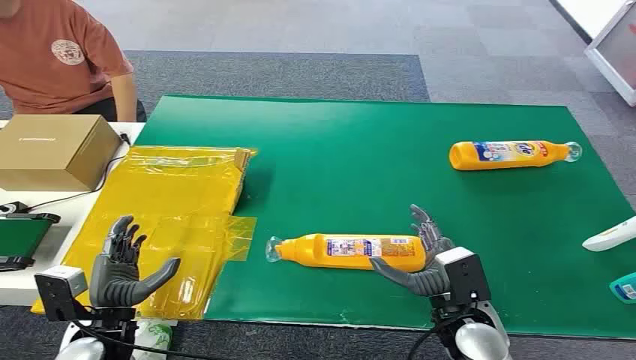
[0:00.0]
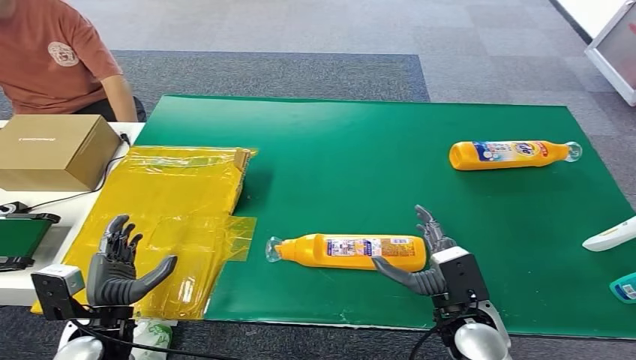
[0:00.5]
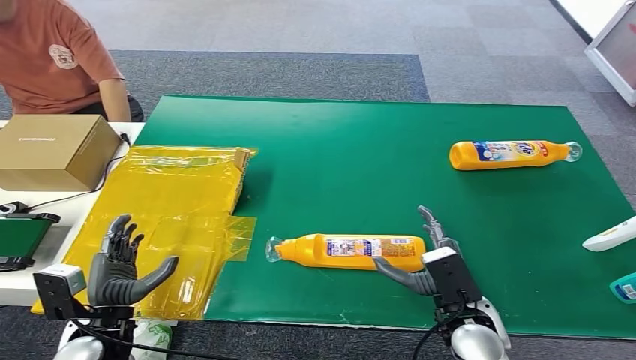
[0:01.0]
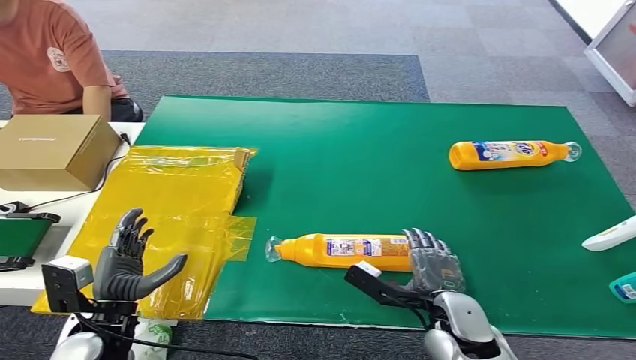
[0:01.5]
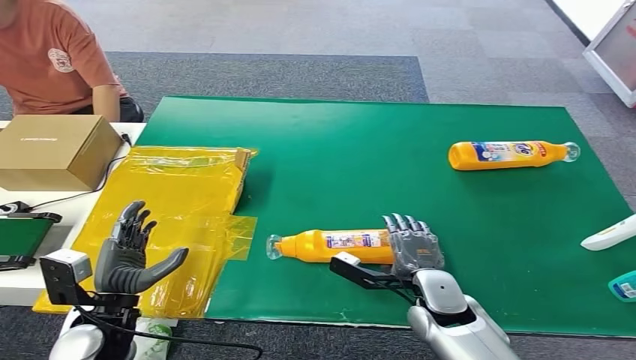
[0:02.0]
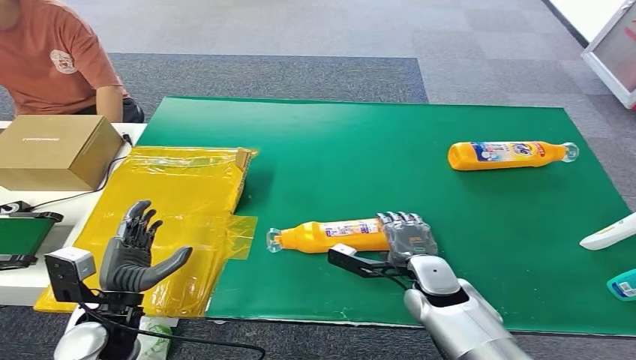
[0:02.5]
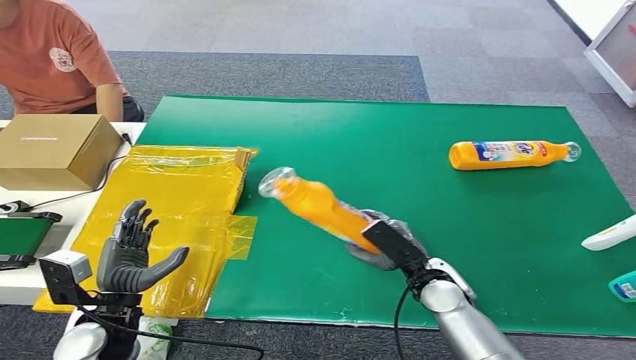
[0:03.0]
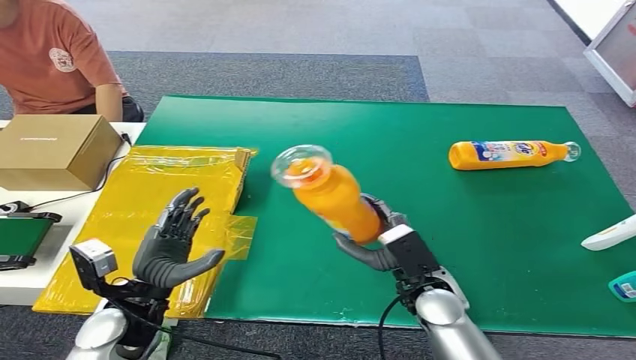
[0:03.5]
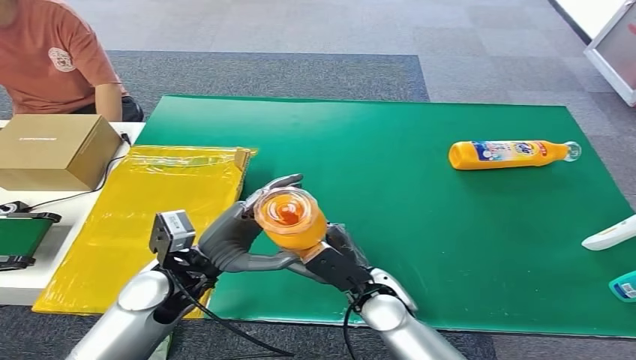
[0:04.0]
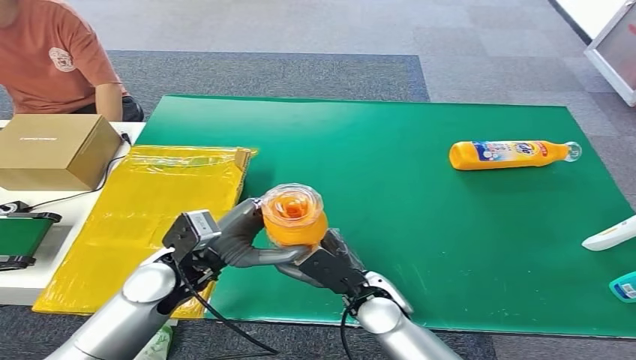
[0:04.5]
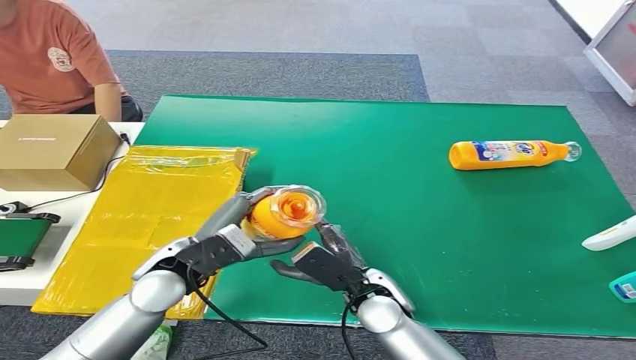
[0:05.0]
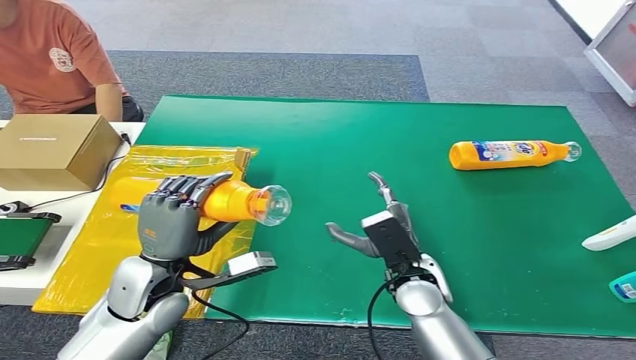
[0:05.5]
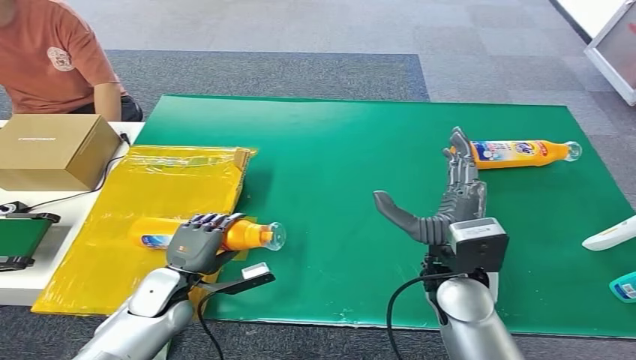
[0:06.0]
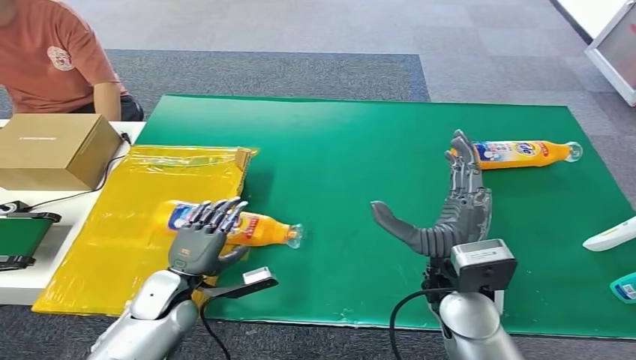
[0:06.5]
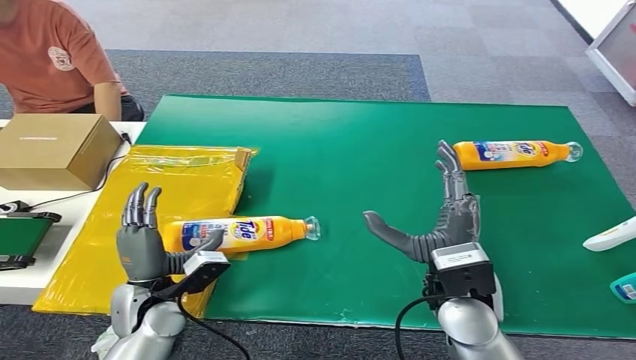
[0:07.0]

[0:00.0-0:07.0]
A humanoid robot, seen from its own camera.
Step, 0:00.0 to 0:03.5: Pick up the bottle from the table.
Step, 0:04.0 to 0:07.0: Turn the bottle to the front side.
0:03.5 to 0:05.0: The left hand travels to the right by roughly 5 cm. The right hand is displaced to the left by some 5 cm.
0:05.0 to 0:07.0: The right hand heads upward and to the right, covering approximately 15 cm. Meanwhile the left hand travels downward by about 10 cm.

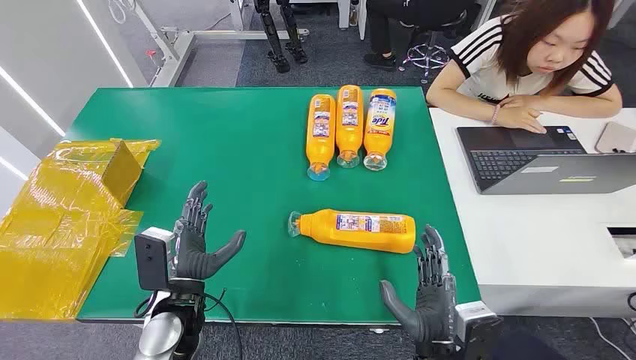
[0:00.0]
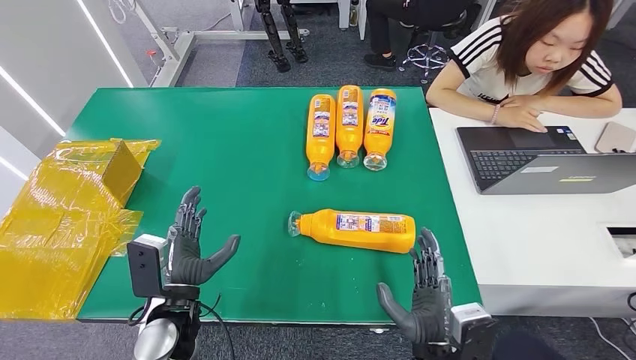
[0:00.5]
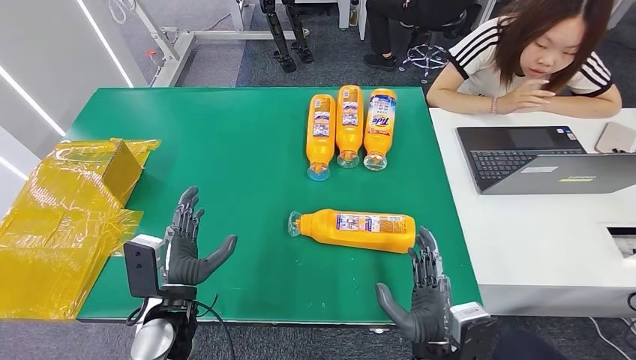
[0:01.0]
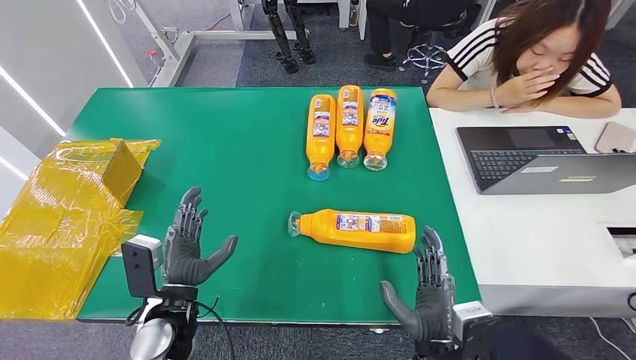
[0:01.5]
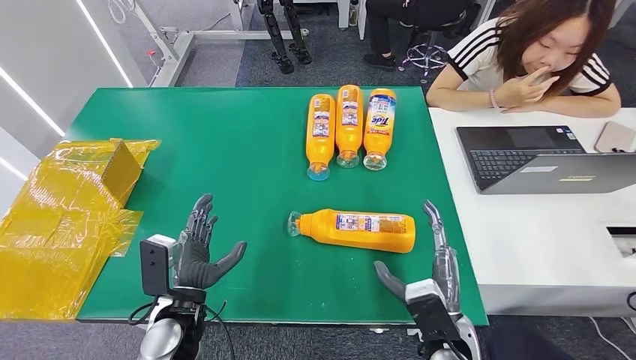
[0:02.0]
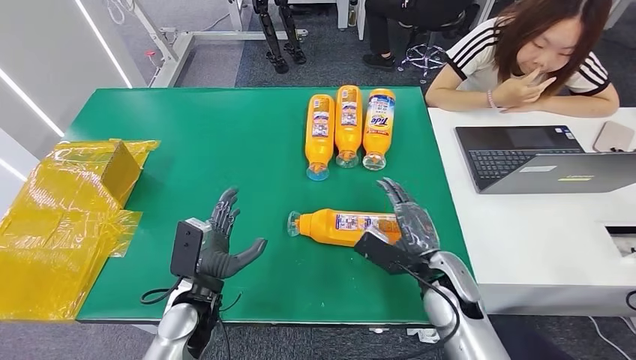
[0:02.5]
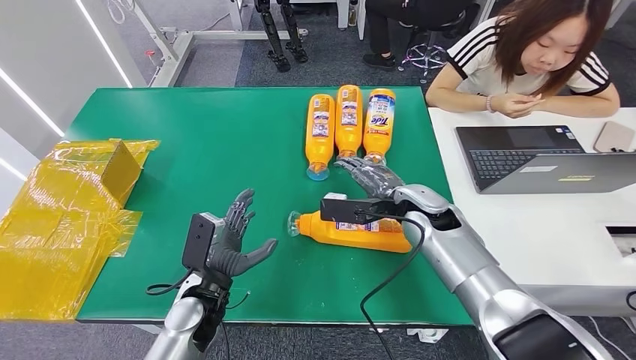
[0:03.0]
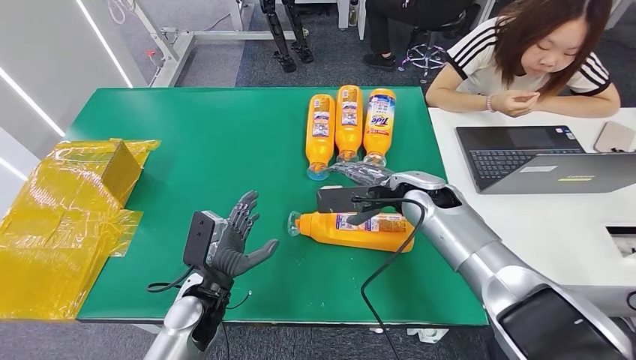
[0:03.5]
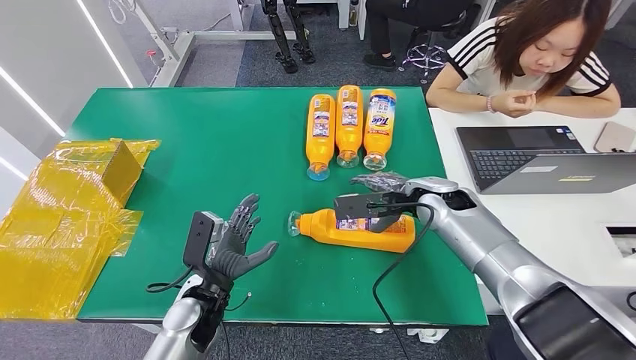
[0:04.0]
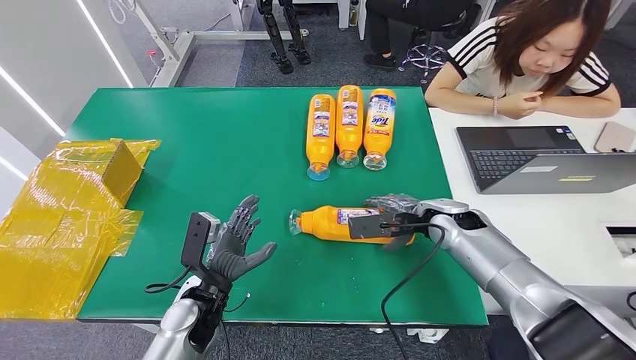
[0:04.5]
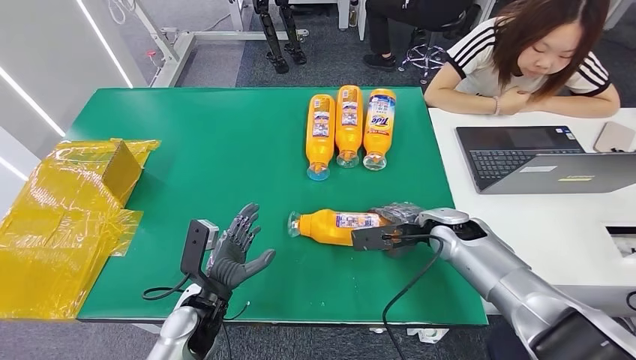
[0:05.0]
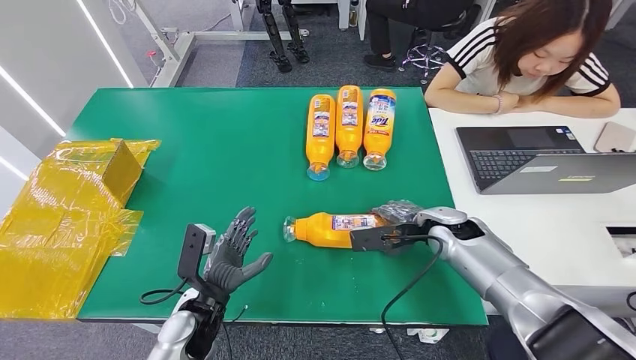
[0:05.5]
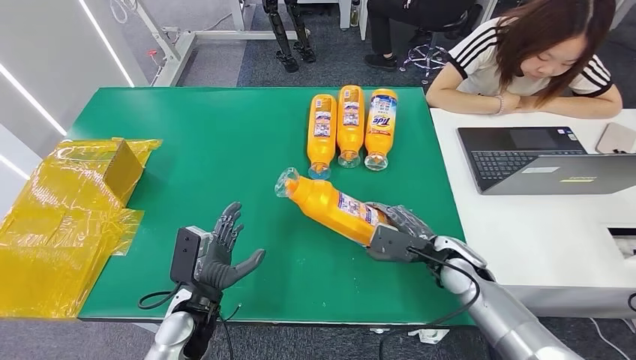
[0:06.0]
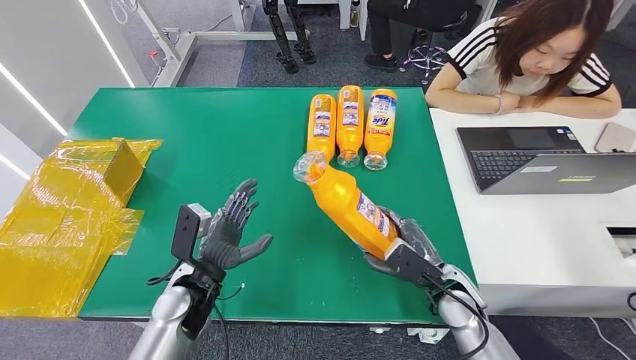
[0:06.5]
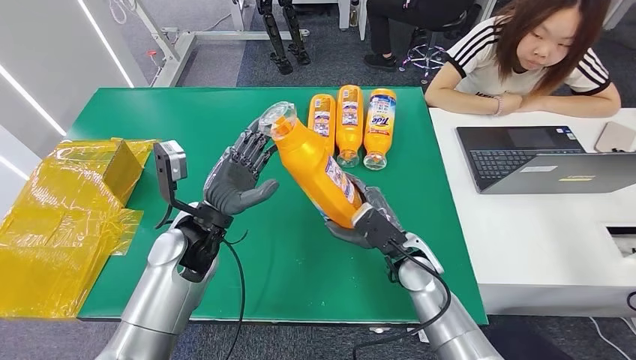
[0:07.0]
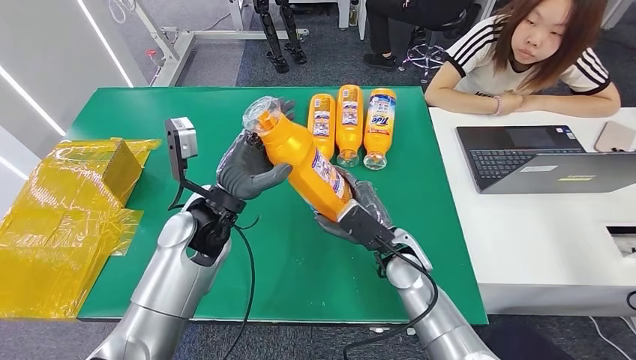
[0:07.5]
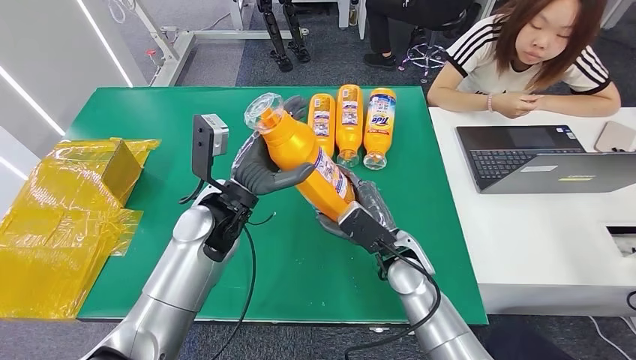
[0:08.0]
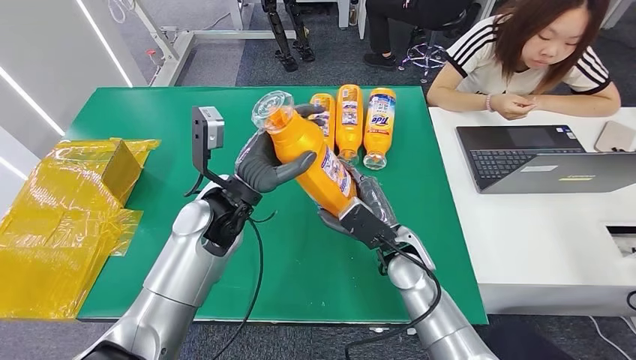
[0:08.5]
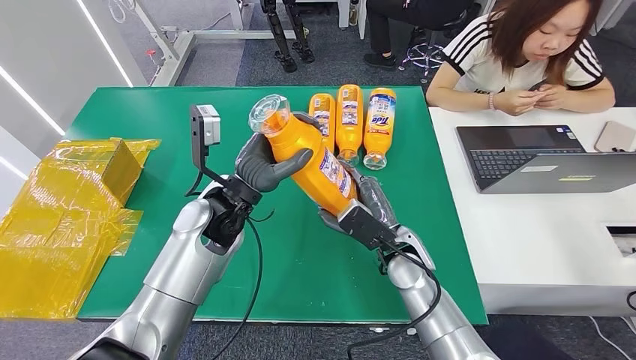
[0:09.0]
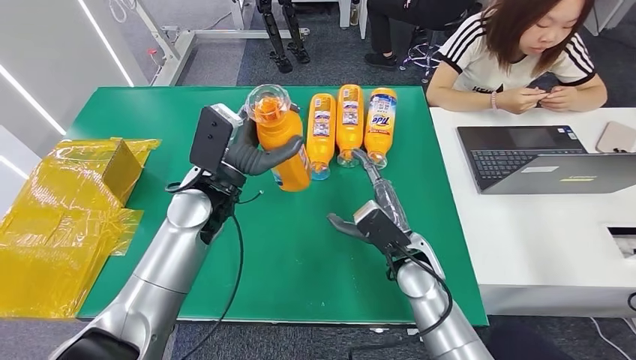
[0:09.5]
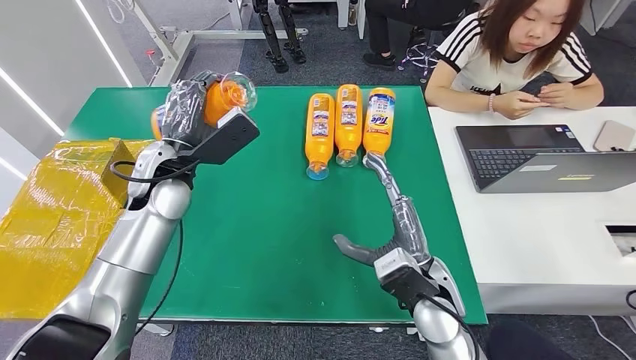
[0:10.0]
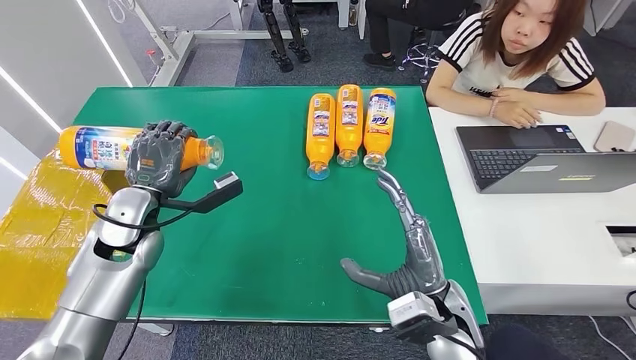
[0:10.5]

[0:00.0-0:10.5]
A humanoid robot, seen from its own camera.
Step, 0:00.0 to 0:07.5: Pick up the bottle from the table.
0:02.0 to 0:04.0: The right hand heads forward, covering about 20 cm.
0:04.0 to 0:06.5: The right hand is displaced backward and downward by approximately 15 cm.

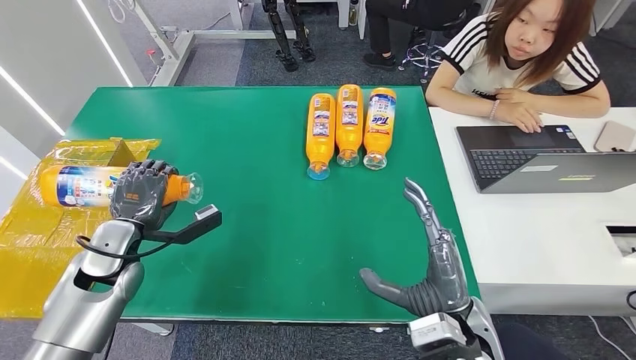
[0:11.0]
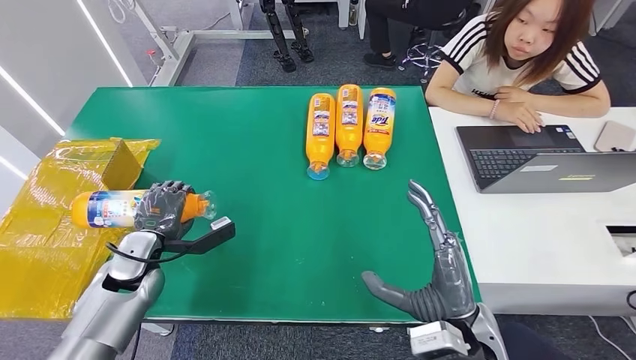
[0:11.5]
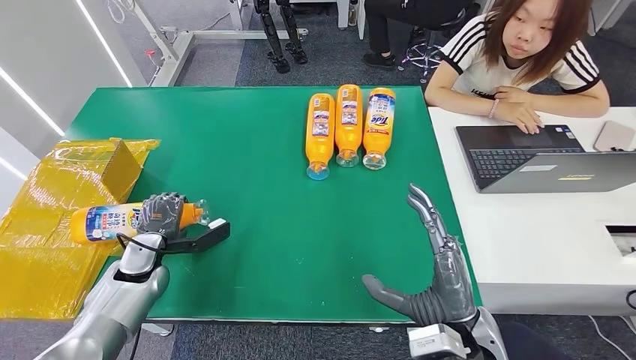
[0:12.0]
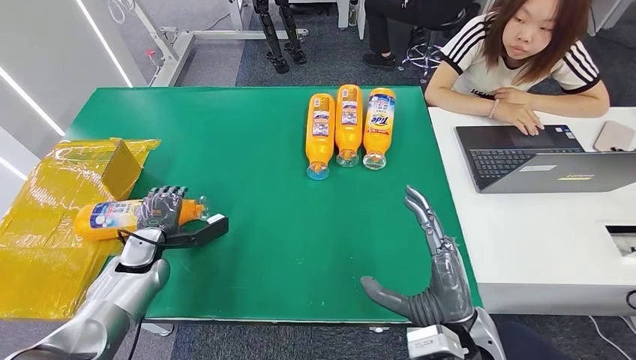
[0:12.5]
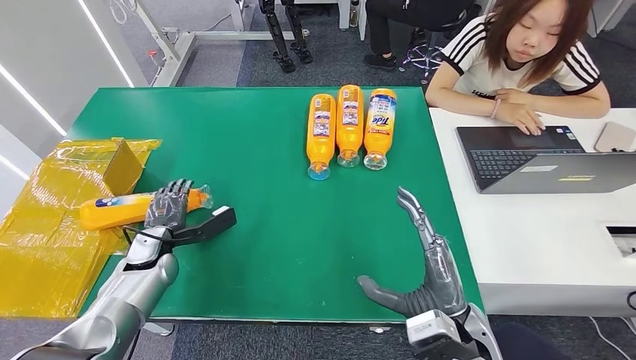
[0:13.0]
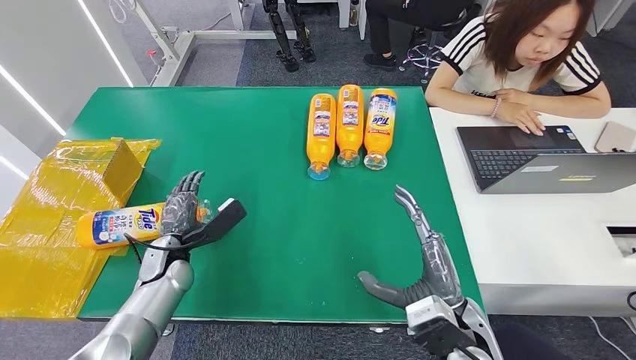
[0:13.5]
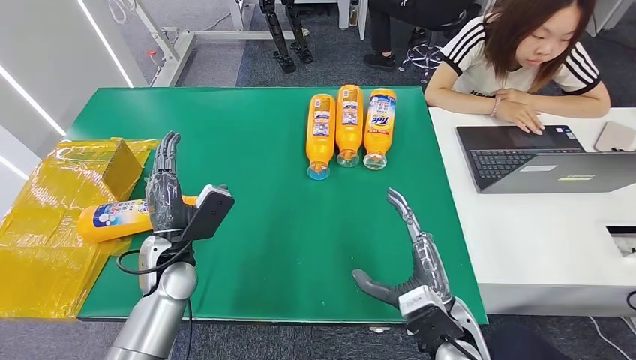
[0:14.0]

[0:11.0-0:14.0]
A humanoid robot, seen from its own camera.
Step, 0:11.0 to 0:14.0: Turn the bottle to the front side.
0:11.0 to 0:12.5: The left hand heads downward, covering approximately 10 cm.
0:12.5 to 0:14.0: The left hand travels to the right and upward by roughly 10 cm.
